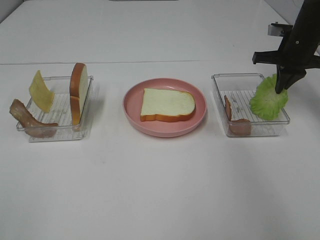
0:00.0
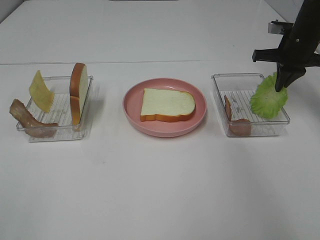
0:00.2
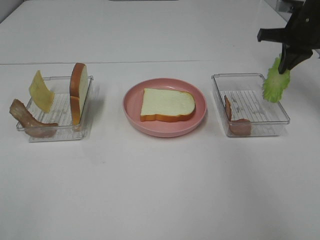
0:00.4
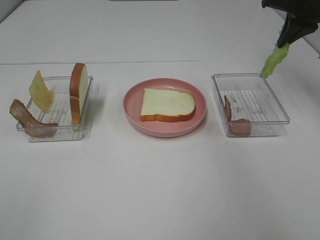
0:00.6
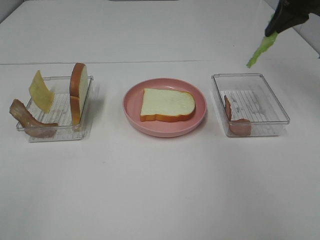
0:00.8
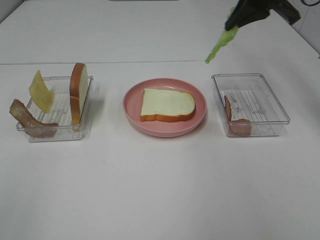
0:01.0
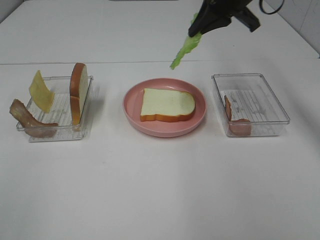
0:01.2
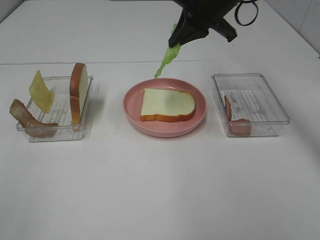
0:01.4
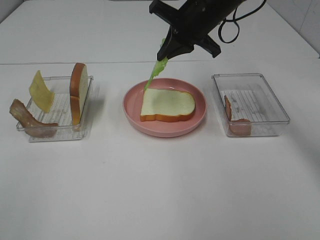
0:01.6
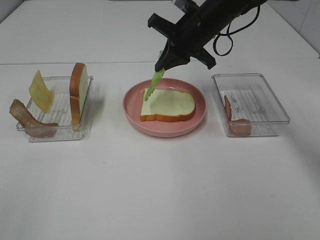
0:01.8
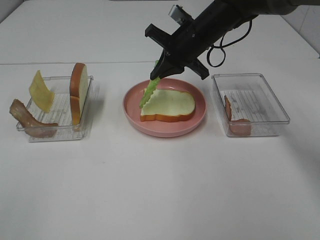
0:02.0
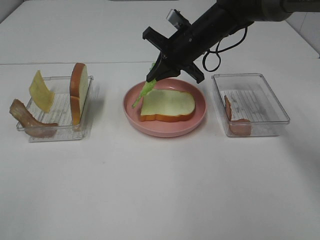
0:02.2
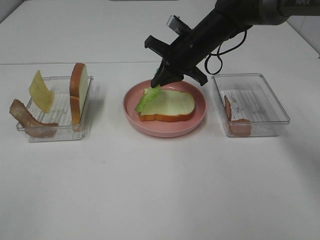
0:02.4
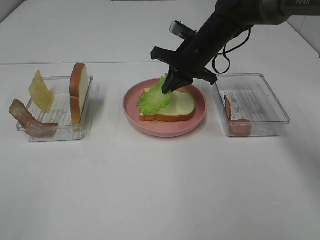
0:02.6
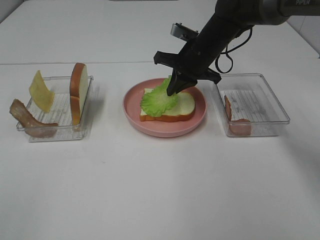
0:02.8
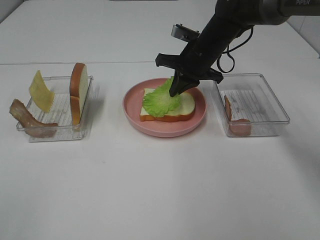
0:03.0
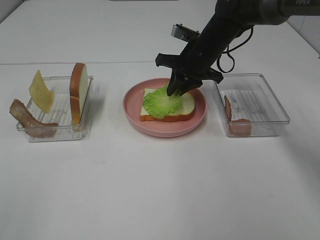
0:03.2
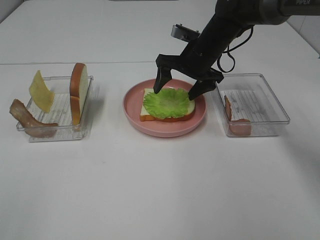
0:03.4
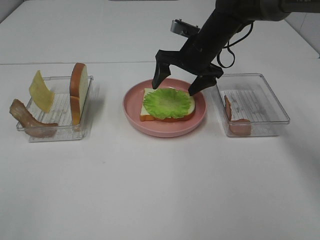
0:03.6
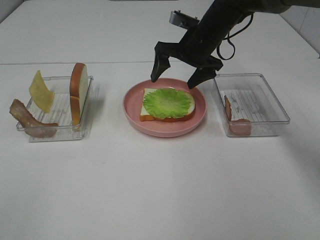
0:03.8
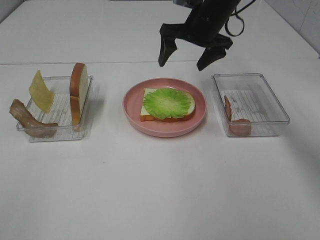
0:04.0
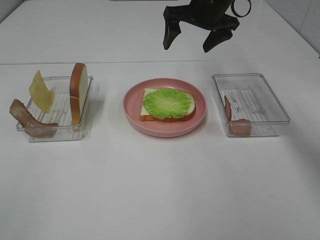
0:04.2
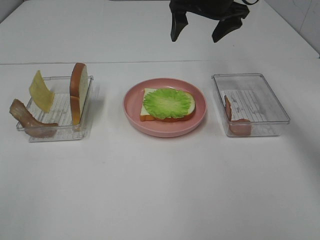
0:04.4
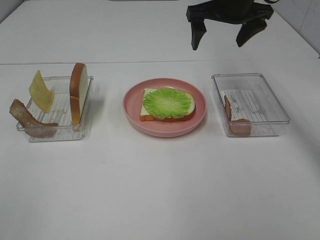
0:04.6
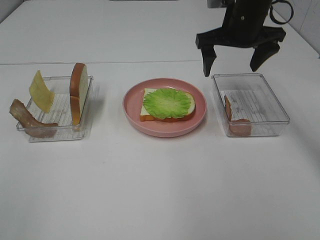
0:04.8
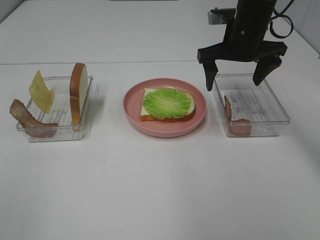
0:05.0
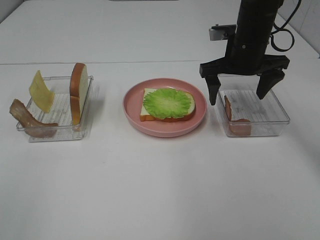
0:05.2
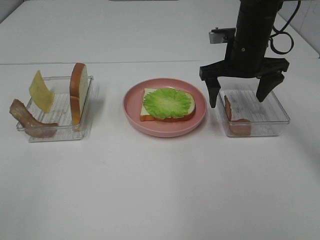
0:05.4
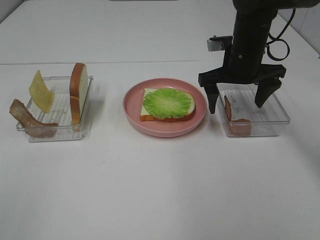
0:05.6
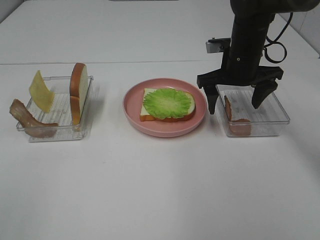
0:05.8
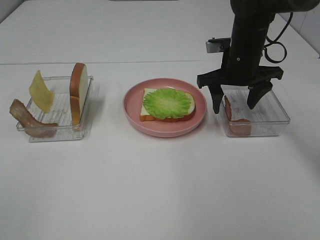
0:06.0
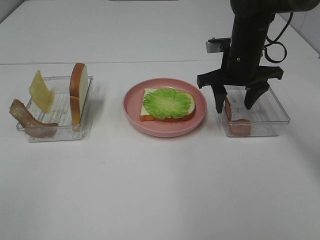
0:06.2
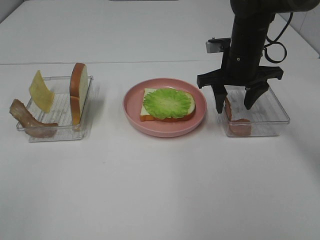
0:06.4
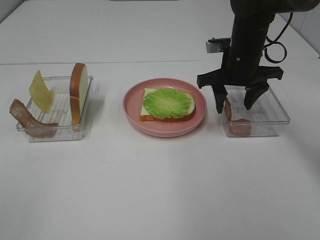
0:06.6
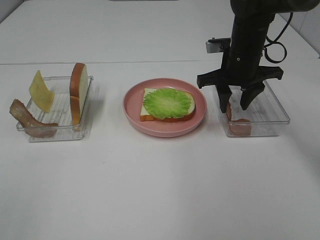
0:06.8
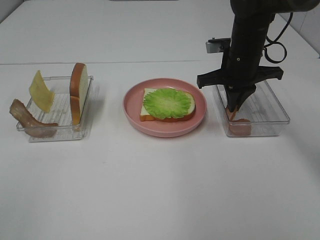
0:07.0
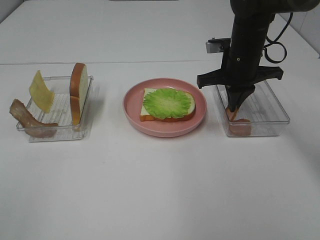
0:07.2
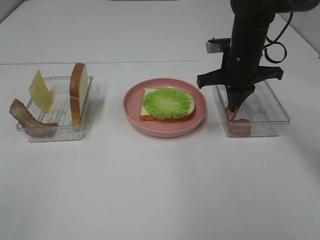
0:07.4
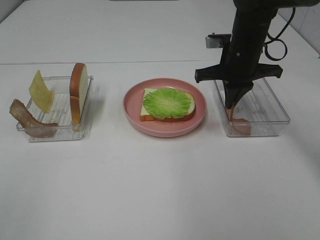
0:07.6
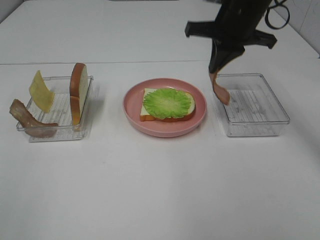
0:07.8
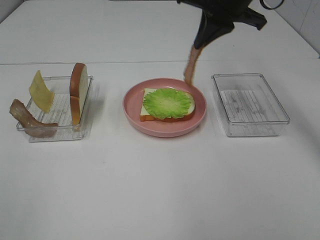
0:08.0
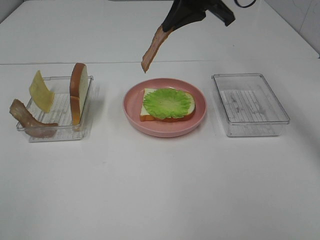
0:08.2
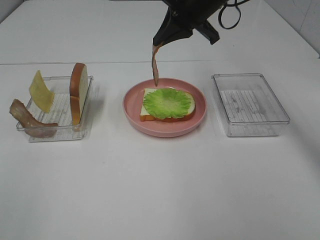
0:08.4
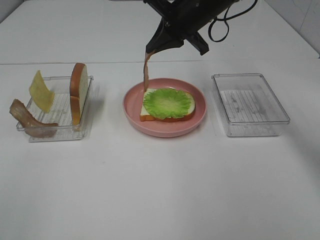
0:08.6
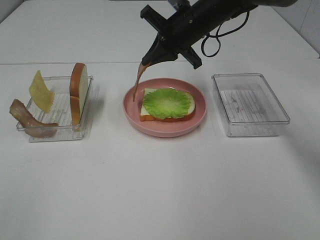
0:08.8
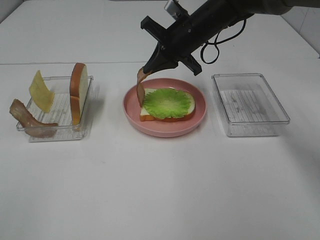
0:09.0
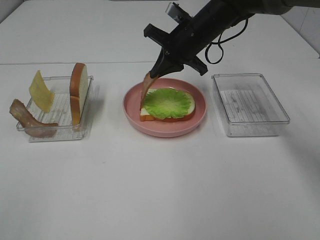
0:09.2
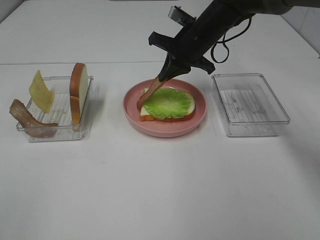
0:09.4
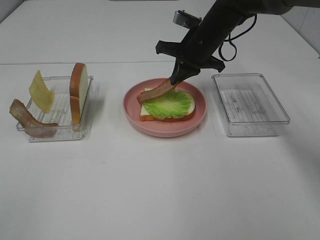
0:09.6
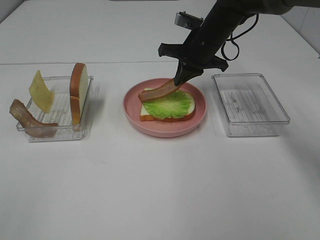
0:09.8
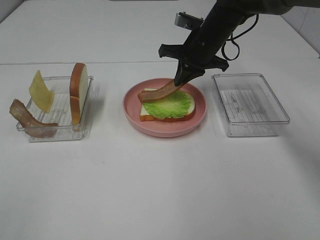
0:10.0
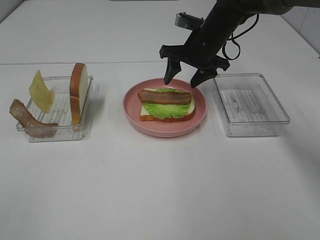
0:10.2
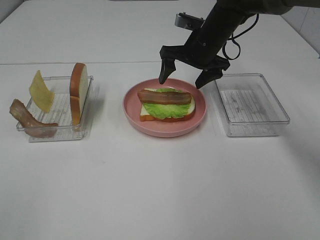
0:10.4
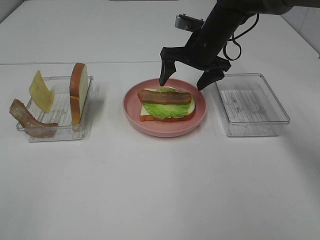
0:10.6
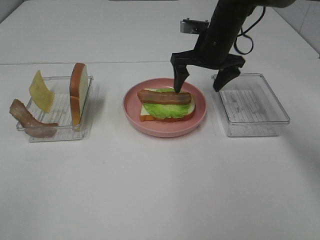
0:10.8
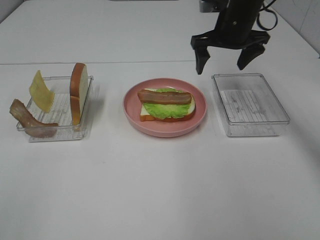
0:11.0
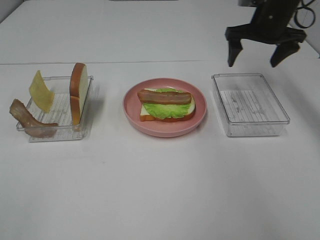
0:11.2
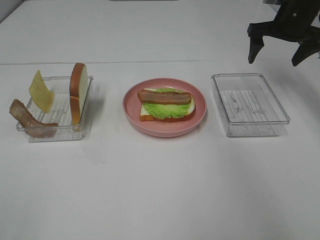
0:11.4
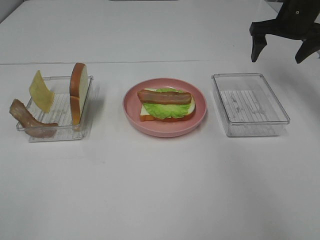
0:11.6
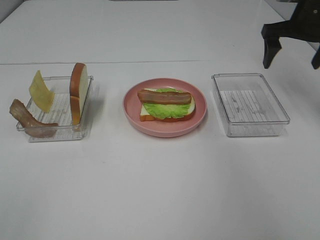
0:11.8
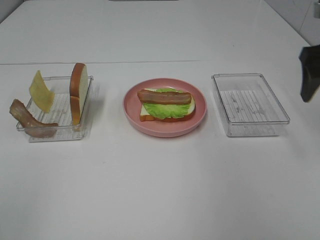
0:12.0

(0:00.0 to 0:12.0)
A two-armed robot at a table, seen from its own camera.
Task of the whole recording: Make sandwiches.
Step, 0:00.4 - 0:03.8: Right hand:place the lettuce slice on the bread slice.
Step, 0:04.0 - 0:07.4: Right hand:grab the bacon.
Step, 0:07.6 - 0:10.2: Right hand:place bacon on lettuce slice.
0:00.0 - 0:01.6: The right gripper moves to the left, about 20 cm.
0:01.6 - 0:03.0: The right gripper goes about 10 cm downward.
0:03.0 - 0:04.4: The right gripper goes roughly 10 cm upward, and opens up.
0:04.4 - 0:06.0: The right gripper travels downward and backward by approximately 10 cm.
0:06.0 - 0:07.6: The right gripper closes its fingers.
0:07.6 - 0:09.0: The right gripper goes about 10 cm to the left and forward, and travels upward and back again, roughly 10 cm each way.
0:09.0 - 0:10.4: The right gripper opens.
0:10.4 - 0:12.0: The right gripper moves to the right, backward and upward, some 25 cm.

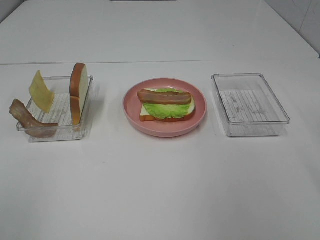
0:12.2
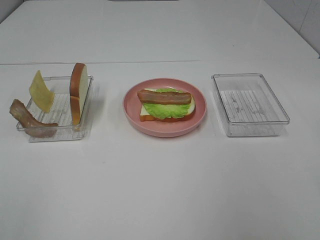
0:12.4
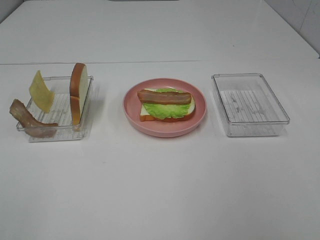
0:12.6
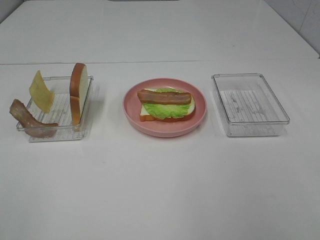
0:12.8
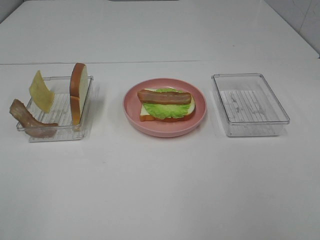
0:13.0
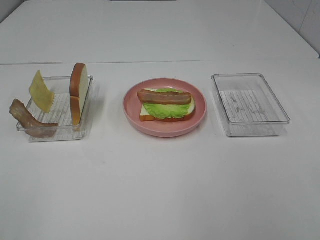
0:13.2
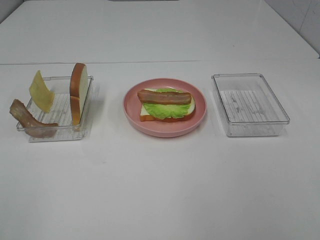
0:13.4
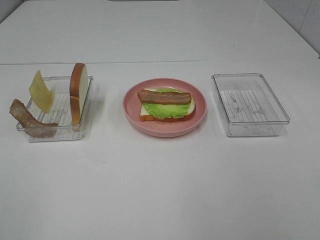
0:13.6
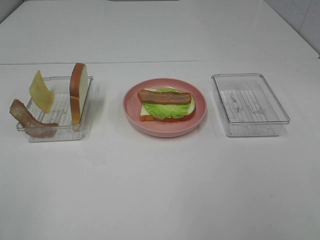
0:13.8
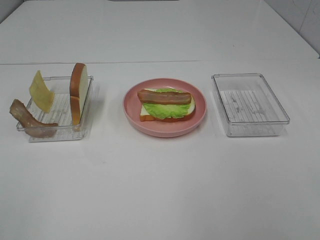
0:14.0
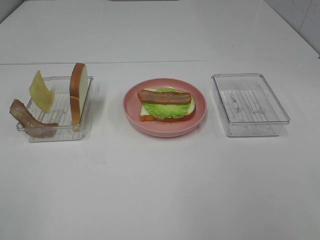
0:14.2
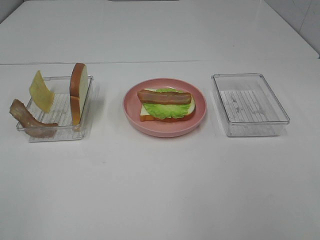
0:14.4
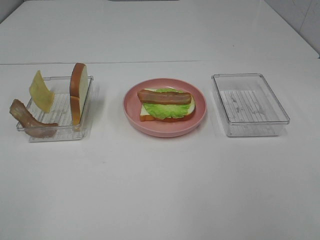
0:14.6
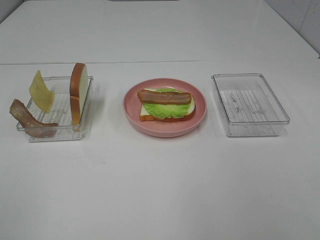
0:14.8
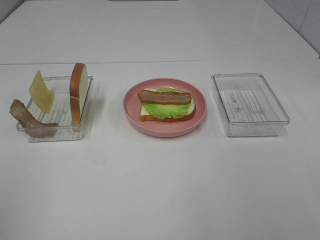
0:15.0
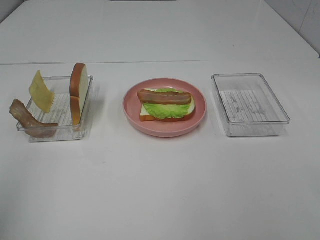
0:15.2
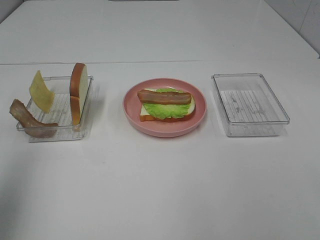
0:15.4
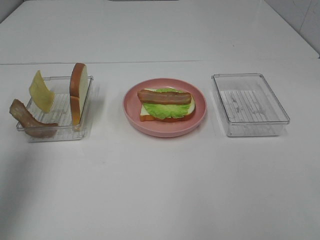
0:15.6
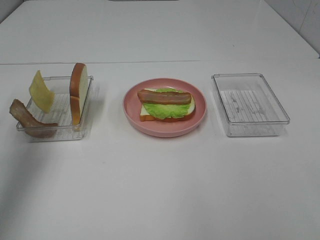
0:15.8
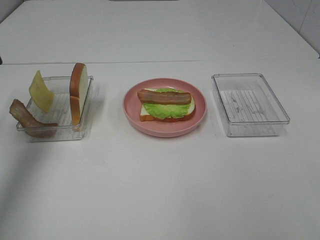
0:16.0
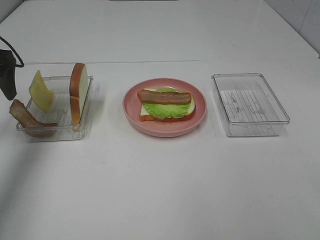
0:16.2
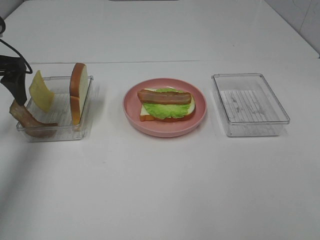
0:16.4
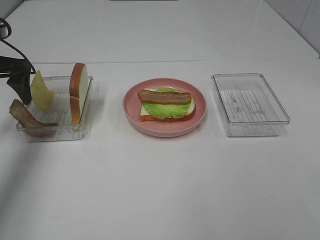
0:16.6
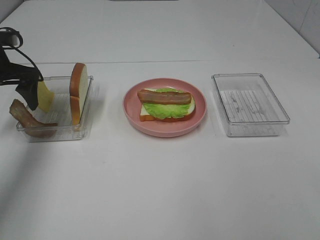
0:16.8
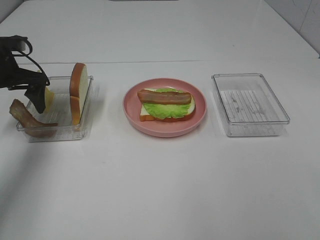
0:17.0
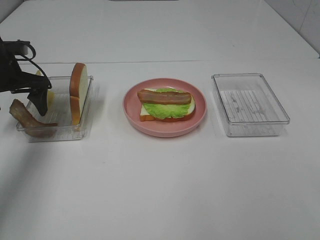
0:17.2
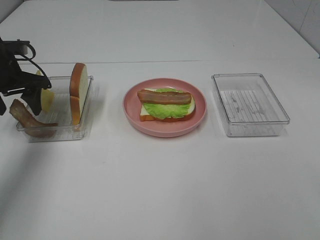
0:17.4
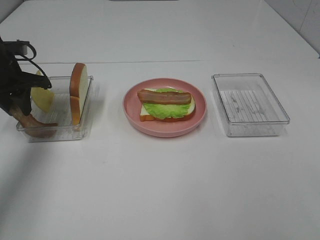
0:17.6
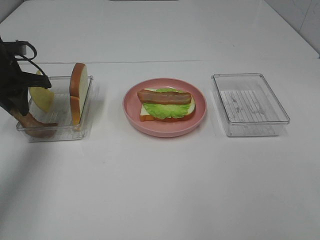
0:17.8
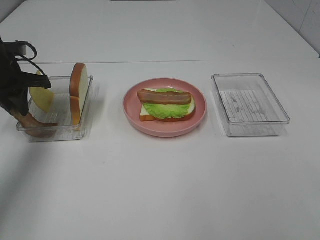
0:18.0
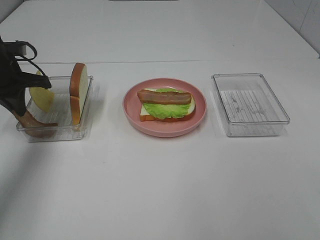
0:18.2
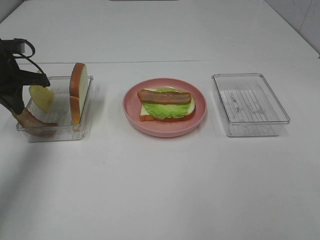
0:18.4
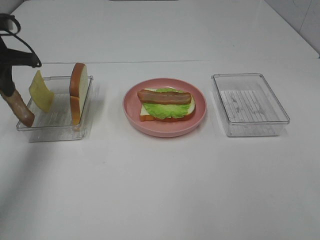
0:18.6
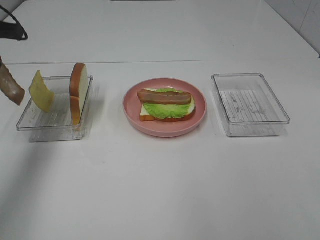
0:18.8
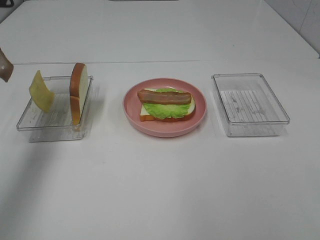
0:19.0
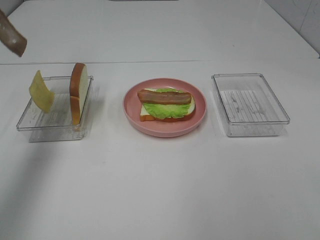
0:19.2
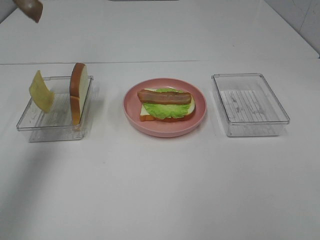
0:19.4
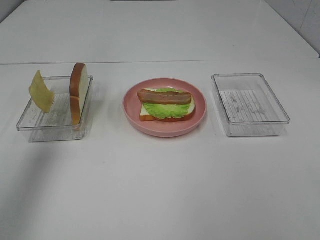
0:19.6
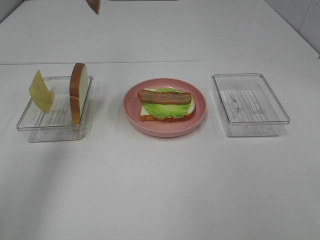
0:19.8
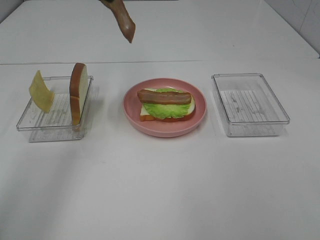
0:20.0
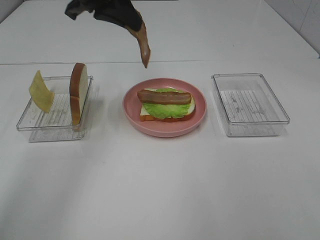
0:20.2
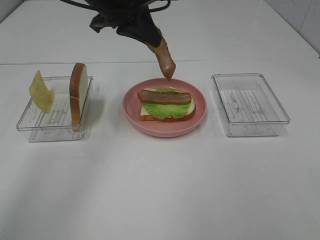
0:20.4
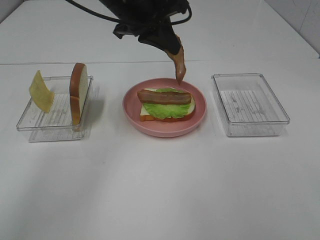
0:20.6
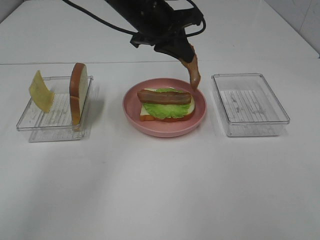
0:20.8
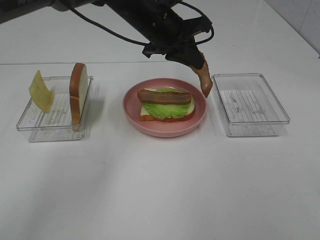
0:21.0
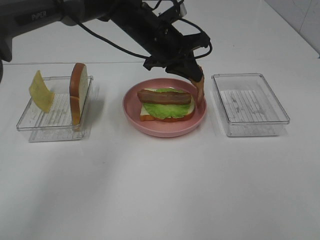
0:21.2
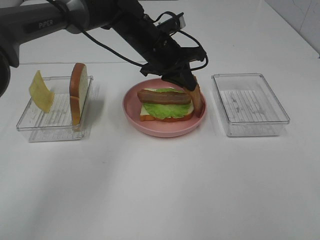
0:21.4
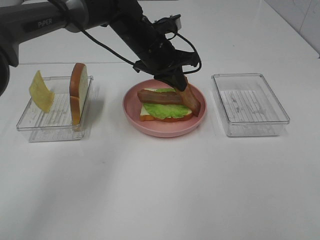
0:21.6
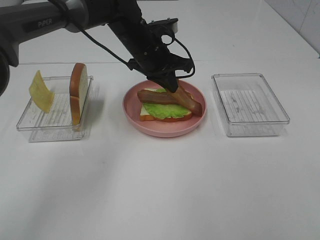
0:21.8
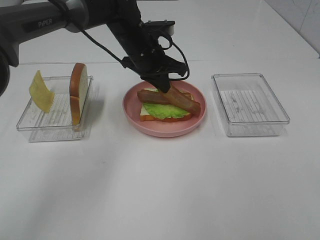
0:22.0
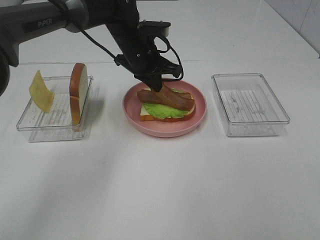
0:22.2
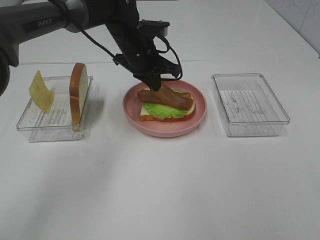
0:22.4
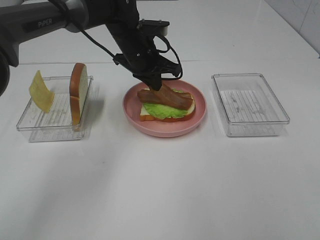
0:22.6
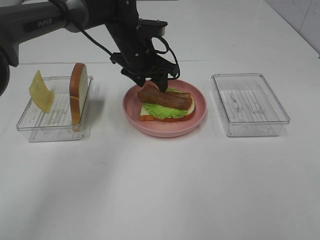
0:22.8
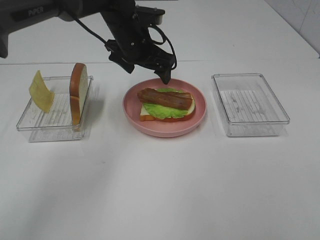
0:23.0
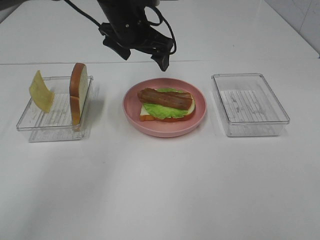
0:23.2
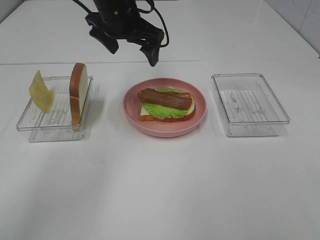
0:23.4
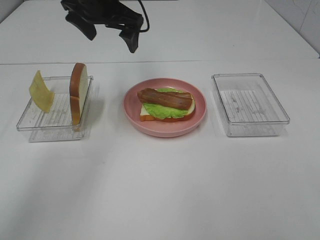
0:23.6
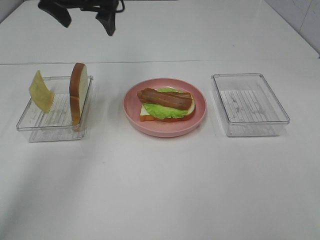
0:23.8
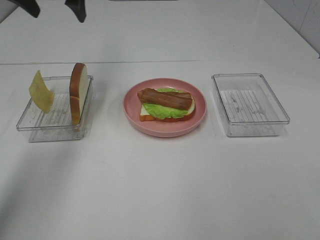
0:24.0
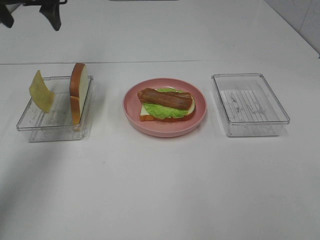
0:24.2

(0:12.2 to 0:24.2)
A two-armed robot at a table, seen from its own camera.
Task of the whole recording: Make sandwiches.
Step, 0:12.2 - 0:18.4: Left hand:grab the bacon.
Step, 0:18.6 - 0:22.8: Left hand:place bacon on bacon.
0:15.2 - 0:16.6: The left gripper is displaced forward and downward by roughly 35 cm.
0:16.6 - 0:18.2: The left gripper closes.
0:18.2 - 0:19.8: The left gripper is displaced upward by approximately 25 cm.
0:19.8 - 0:21.2: The left gripper moves downward and to the right, roughly 30 cm.
0:22.6 - 0:24.2: The left gripper moves to the left and upward, roughly 25 cm, and opens up.
